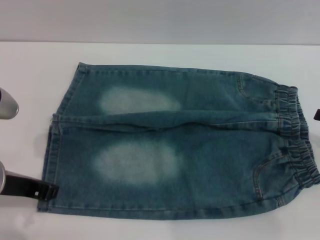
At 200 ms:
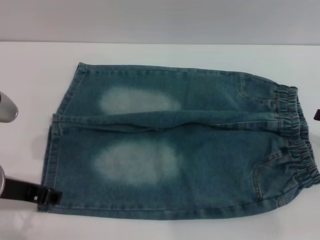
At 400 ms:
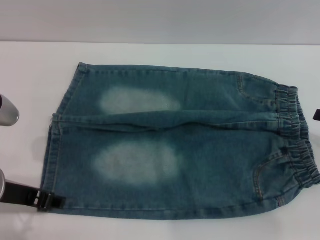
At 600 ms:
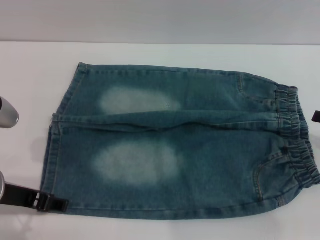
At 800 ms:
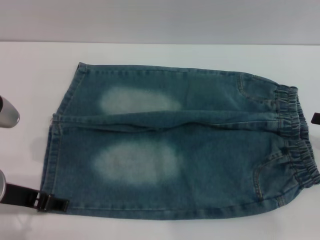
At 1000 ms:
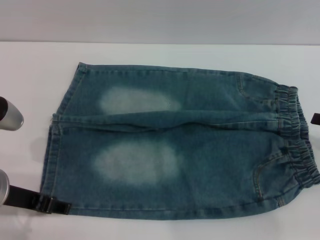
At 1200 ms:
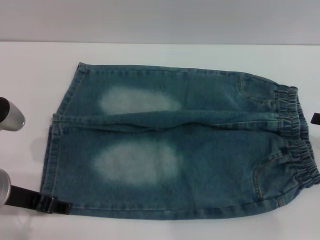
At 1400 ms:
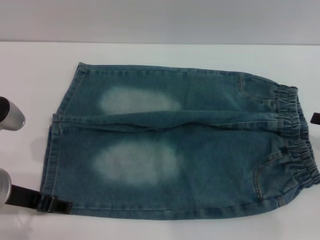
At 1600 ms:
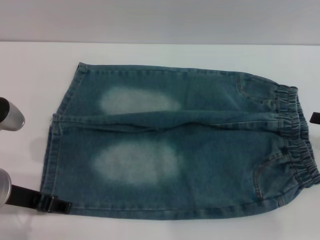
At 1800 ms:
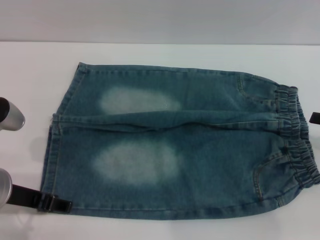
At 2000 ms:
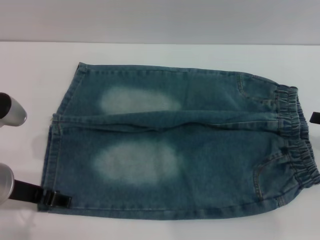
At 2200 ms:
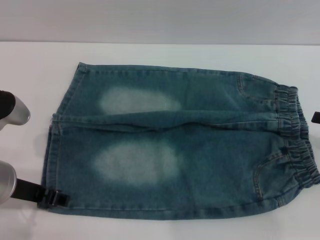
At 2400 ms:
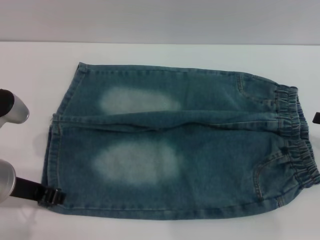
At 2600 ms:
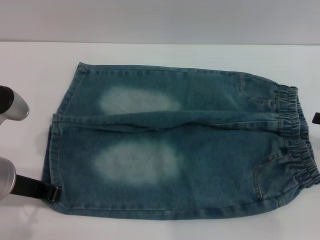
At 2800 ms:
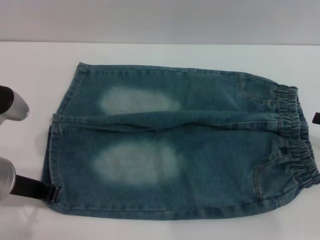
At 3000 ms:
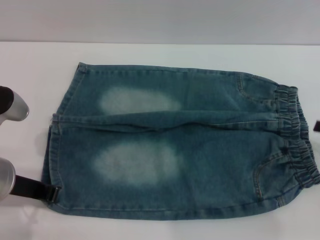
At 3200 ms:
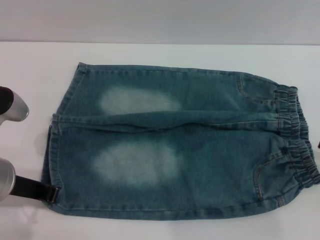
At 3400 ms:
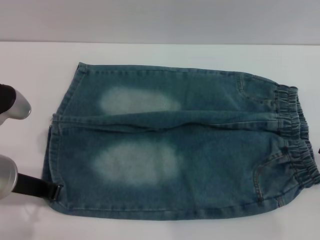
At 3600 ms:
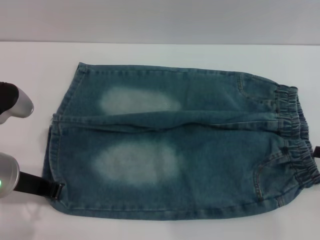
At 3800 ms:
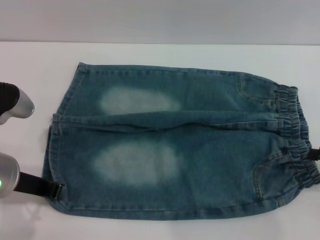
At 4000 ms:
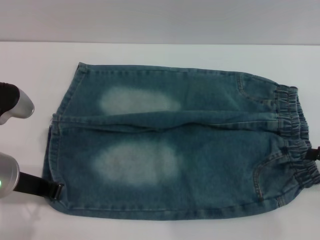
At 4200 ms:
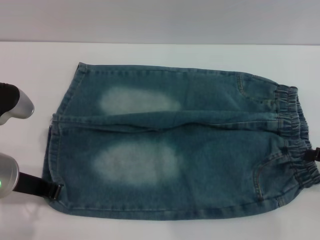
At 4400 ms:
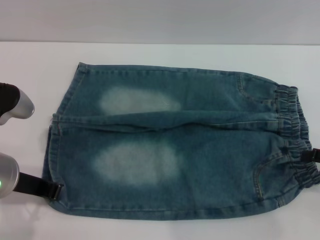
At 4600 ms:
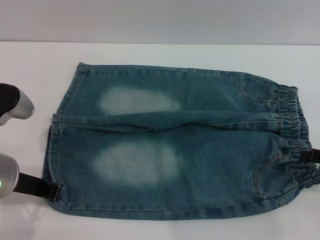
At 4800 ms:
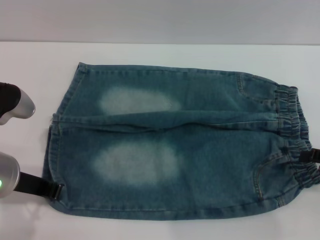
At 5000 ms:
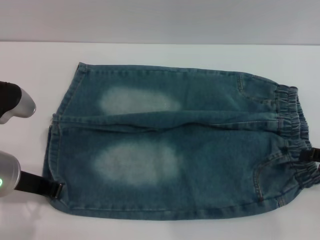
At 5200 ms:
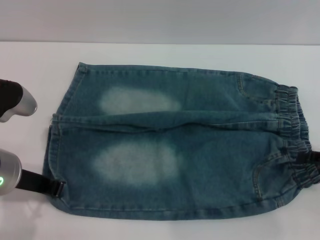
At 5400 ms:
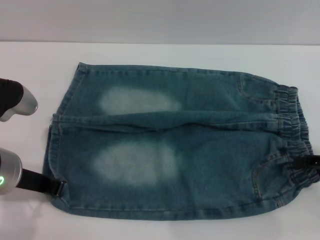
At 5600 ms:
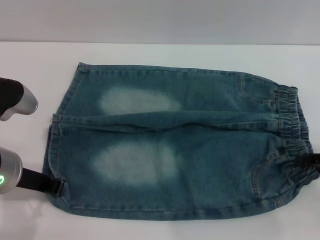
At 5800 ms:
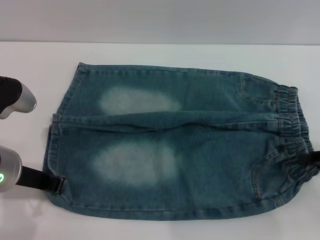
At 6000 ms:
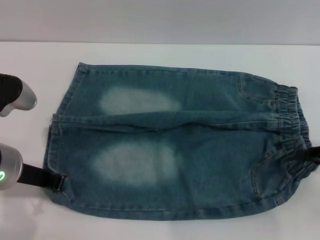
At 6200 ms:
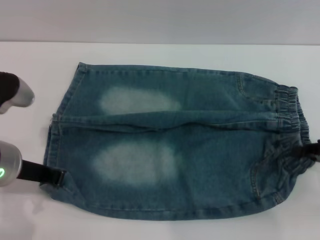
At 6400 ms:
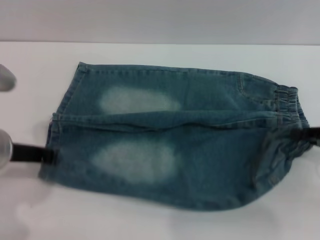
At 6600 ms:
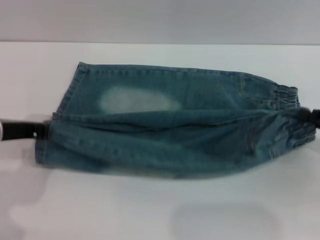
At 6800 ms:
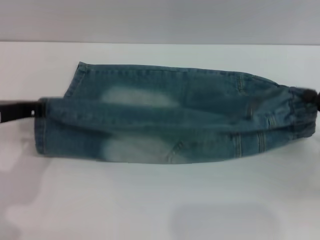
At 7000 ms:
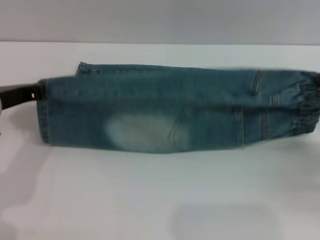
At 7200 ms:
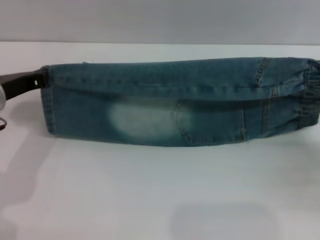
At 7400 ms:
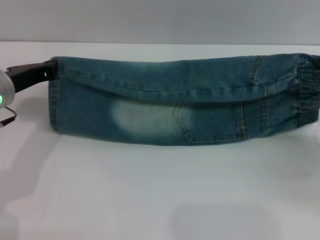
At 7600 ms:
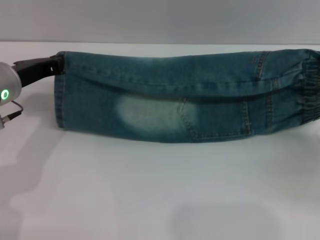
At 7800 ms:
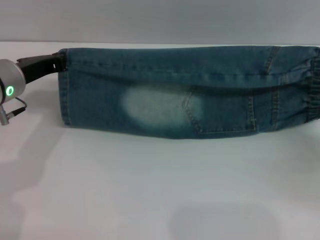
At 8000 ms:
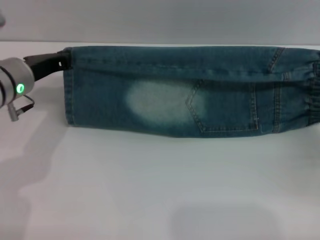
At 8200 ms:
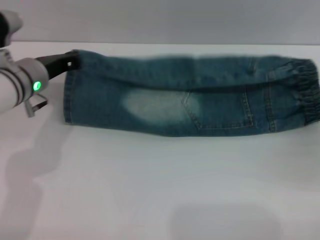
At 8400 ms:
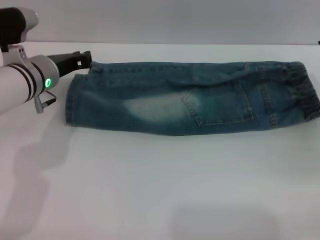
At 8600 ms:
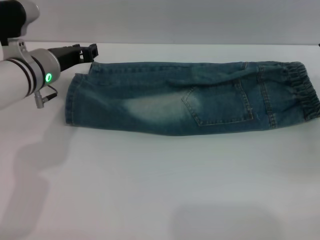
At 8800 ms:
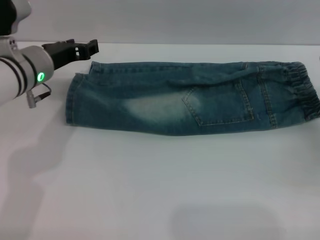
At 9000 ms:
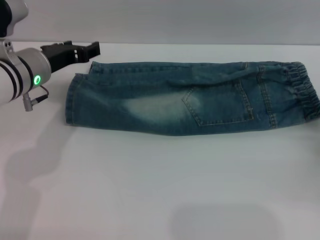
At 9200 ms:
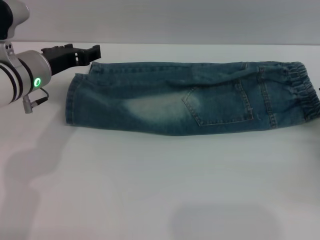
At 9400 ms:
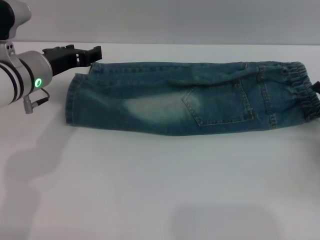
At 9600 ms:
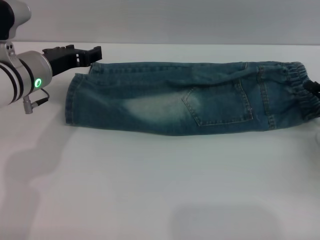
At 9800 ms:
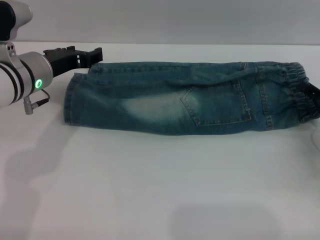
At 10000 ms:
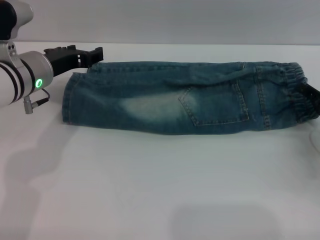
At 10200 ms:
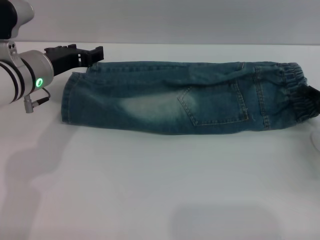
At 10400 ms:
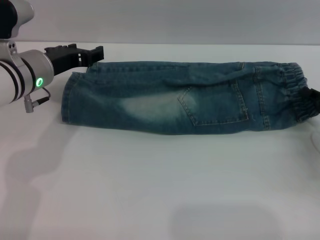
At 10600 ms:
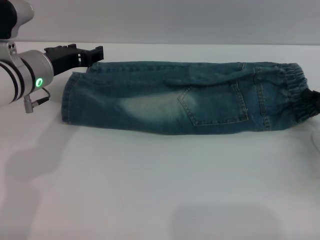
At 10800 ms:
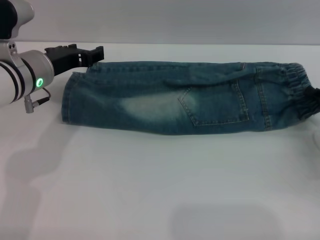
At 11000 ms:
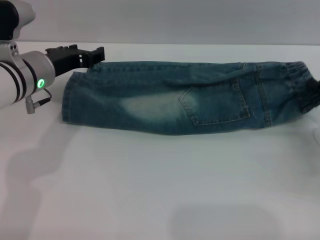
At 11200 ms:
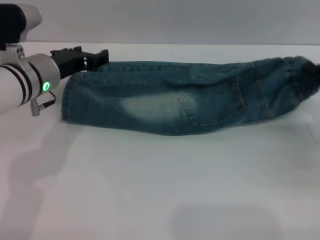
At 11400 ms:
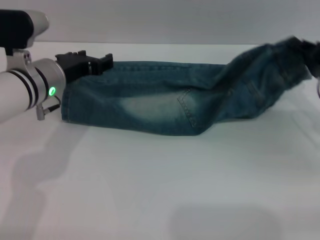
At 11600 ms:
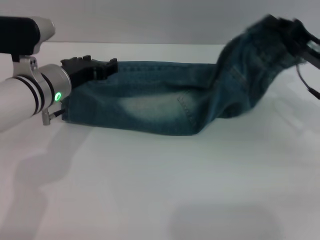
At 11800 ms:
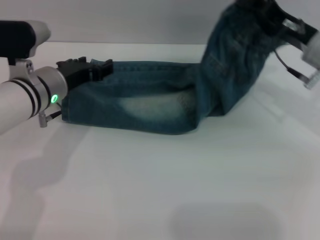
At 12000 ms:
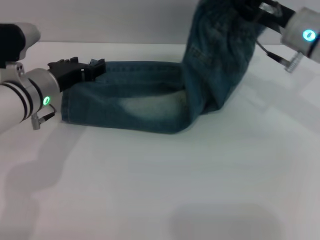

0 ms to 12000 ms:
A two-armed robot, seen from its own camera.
Step, 0 ms to 9000 ms: Fold the bottom of the pants upward with both grippers.
0 ms to 1600 ms: The left gripper opens its fingers.
1600 ms to 3000 ms: The left gripper closes up.
3000 ms to 4400 ms: The grippers move only a little.
4400 ms to 6000 ms: The right gripper closes its fingers.
6000 ms to 7600 ms: The left gripper goes roughly 10 cm forward. The right gripper changes place by roughly 5 cm.
7600 ms to 9000 ms: The left gripper opens; the right gripper opens its fingers.
9000 ms to 10400 ms: The right gripper closes its fingers.
10400 ms to 12000 ms: The right gripper heads upward, to the left and forward, covering some 20 cm.

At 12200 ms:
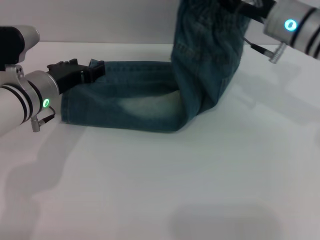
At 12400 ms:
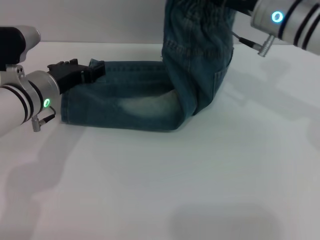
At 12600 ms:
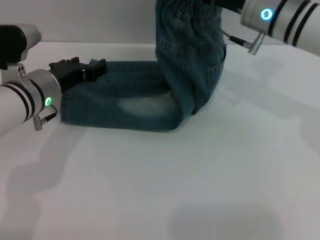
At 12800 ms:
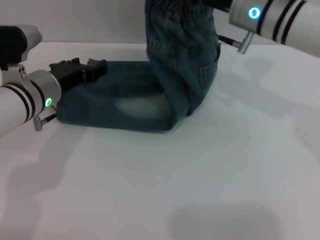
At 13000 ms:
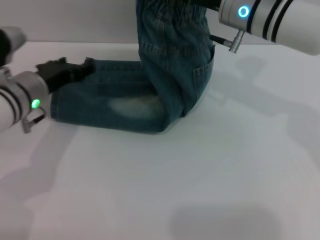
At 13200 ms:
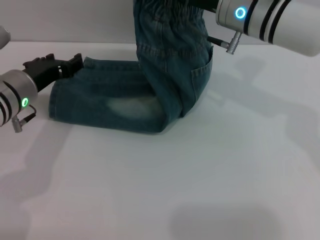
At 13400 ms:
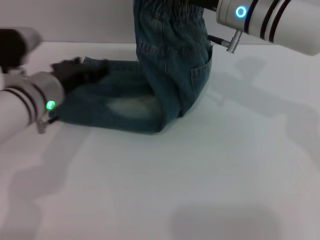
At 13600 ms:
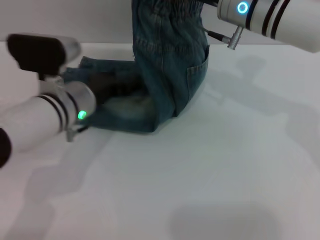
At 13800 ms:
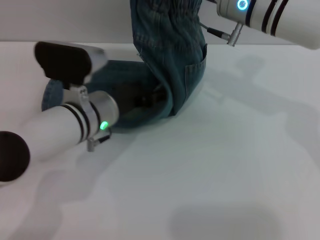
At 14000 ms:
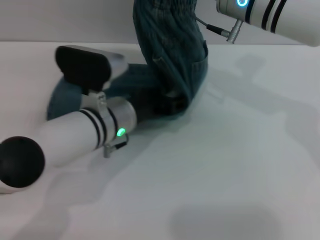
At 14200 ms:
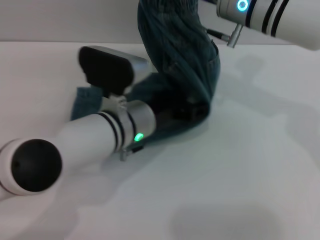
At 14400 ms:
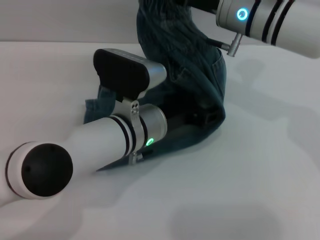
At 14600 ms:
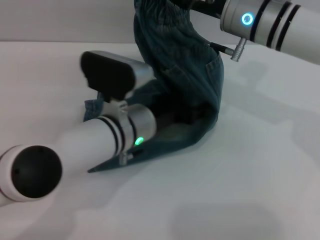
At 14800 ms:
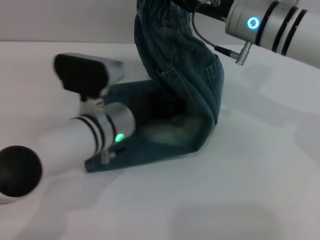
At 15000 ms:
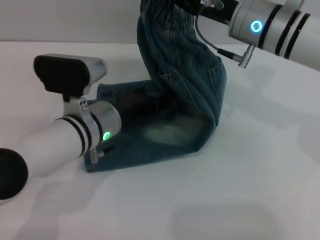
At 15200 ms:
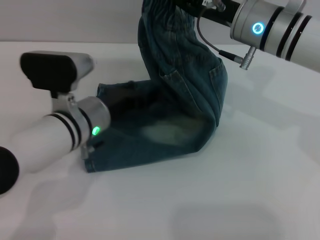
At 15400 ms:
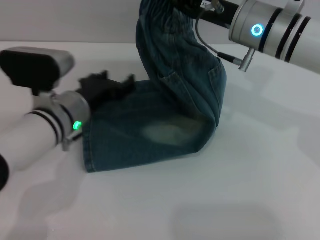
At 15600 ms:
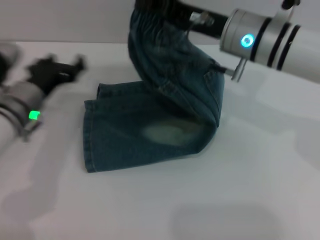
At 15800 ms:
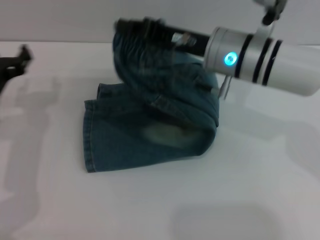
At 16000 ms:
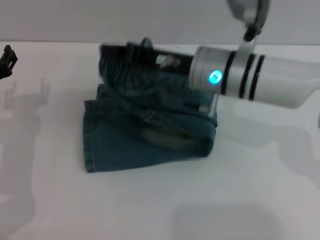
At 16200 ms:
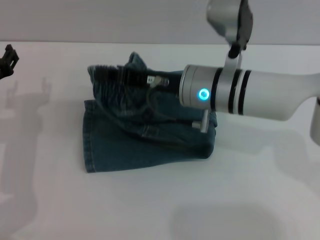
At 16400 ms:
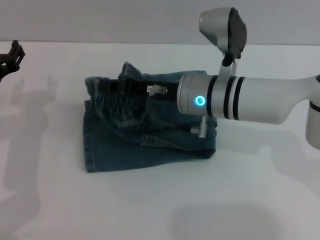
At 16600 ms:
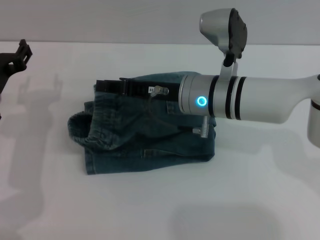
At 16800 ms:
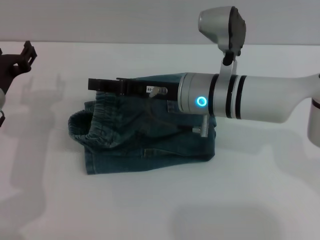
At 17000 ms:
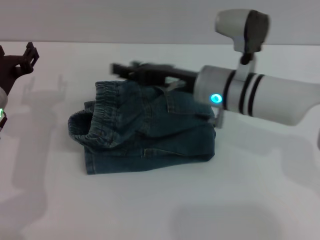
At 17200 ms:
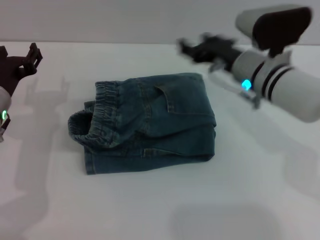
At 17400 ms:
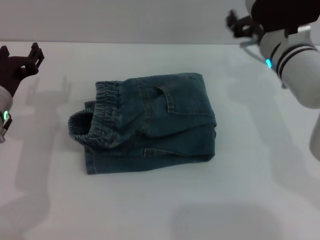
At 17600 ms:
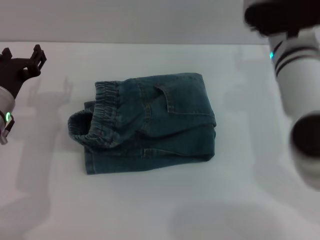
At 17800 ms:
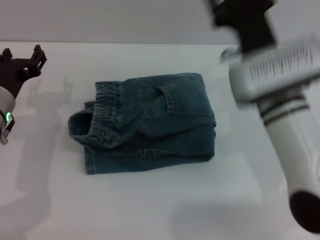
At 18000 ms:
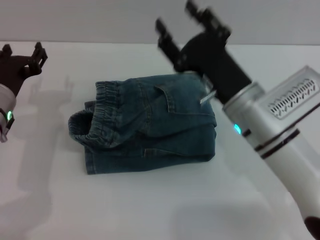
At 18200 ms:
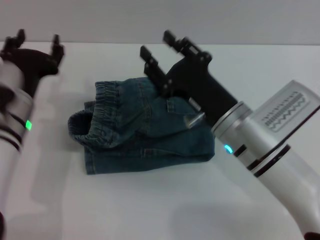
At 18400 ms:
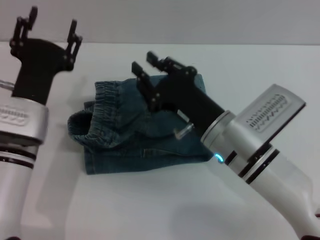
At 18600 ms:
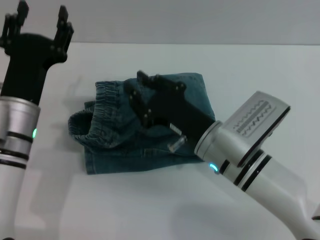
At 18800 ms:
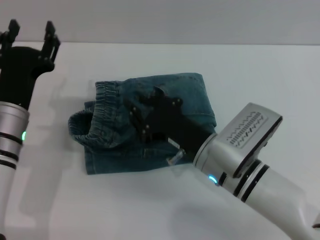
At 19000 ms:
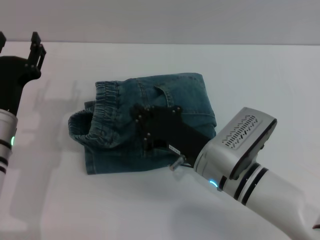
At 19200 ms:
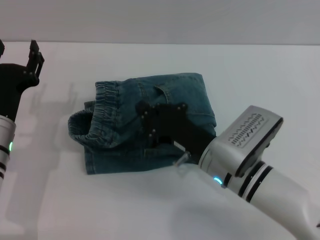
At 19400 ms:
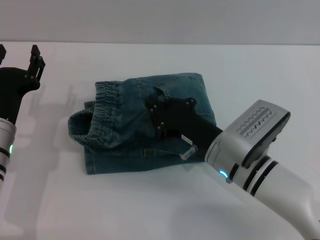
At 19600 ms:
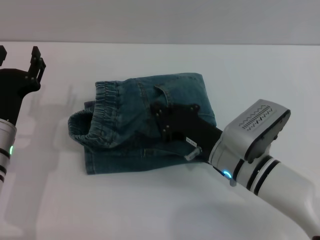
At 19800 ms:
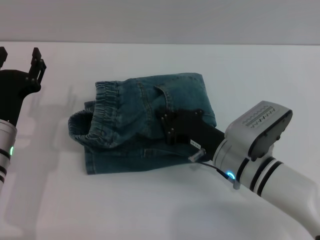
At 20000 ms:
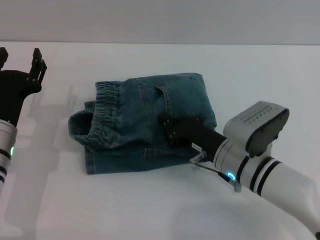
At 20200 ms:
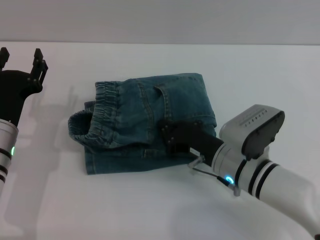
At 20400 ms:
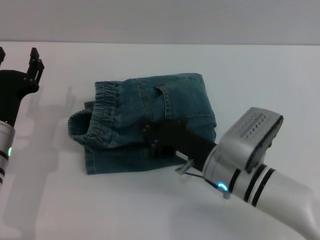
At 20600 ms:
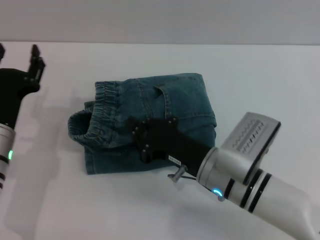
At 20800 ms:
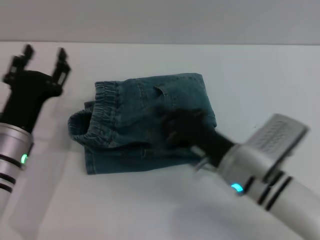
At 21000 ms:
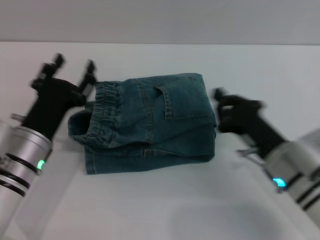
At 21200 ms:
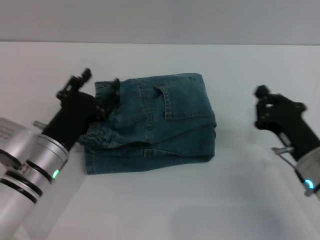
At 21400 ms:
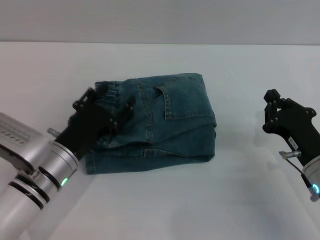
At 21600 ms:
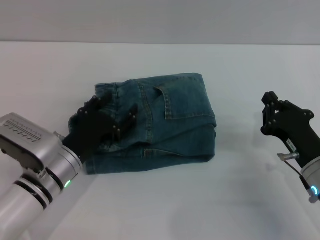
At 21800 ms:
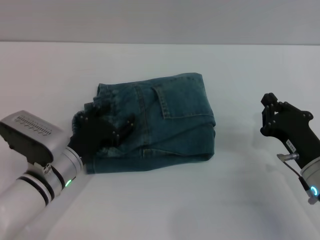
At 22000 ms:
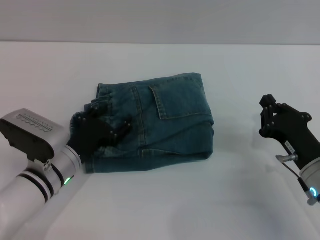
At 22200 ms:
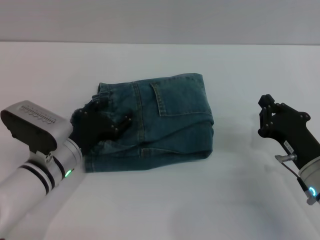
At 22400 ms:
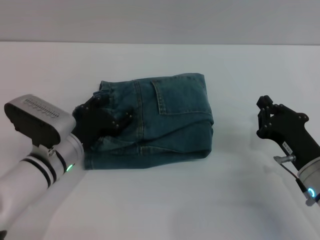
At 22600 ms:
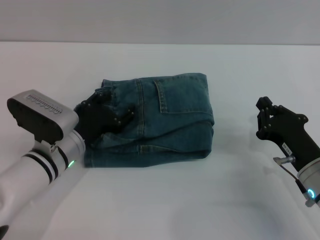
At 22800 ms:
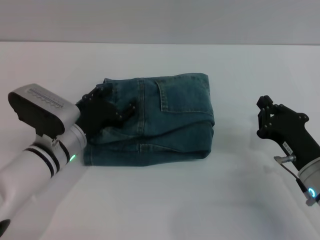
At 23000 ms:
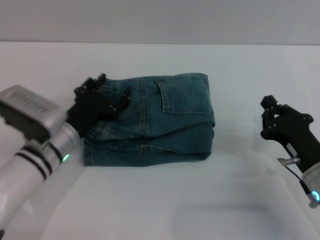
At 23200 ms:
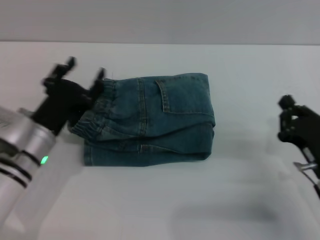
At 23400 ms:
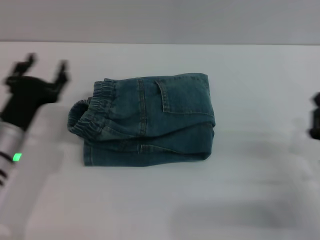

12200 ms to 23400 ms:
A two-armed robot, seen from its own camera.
Step, 12200 ms to 16800 ms: Fold the pants from right to left with the right gripper.
Step, 17000 ms to 23000 ms: Place the folded trousers onto the center area with the left grippers.
12200 ms to 13800 ms: The right gripper goes about 5 cm to the left. The left gripper travels to the right by roughly 10 cm.
15400 ms to 17000 ms: The right gripper moves downward, some 5 cm, and opens its fingers, while the left gripper heads to the left, covering approximately 10 cm.
17000 ms to 18600 ms: The right gripper travels backward and downward by about 10 cm; the left gripper moves to the right, about 5 cm.
18600 ms to 20200 ms: The left gripper ends up some 5 cm from where it was. The right gripper moves roughly 5 cm, and closes its fingers.
20200 ms to 21800 ms: The left gripper travels to the right by approximately 5 cm. The right gripper moves to the right, roughly 10 cm.
21800 ms to 23400 ms: The left gripper shifts by approximately 5 cm. The right gripper changes place by roughly 5 cm.
